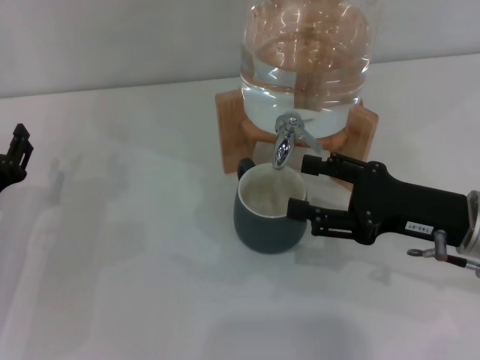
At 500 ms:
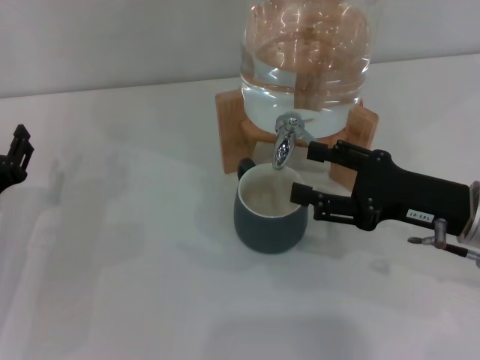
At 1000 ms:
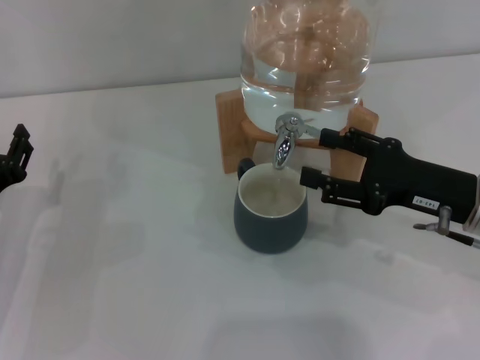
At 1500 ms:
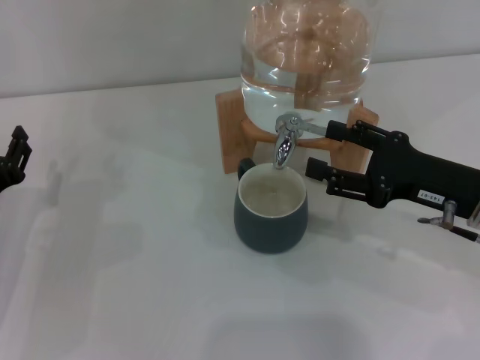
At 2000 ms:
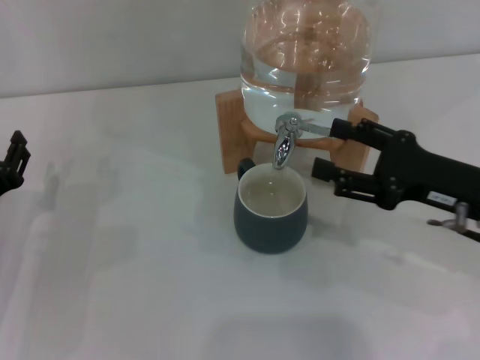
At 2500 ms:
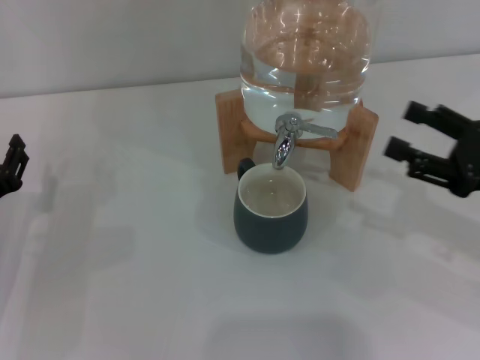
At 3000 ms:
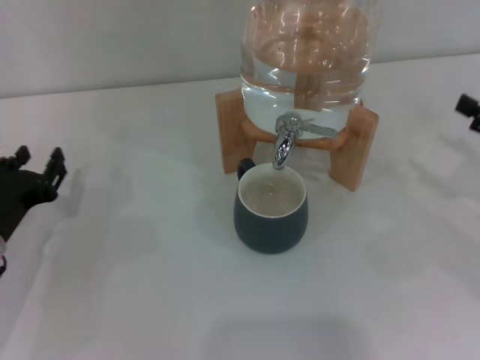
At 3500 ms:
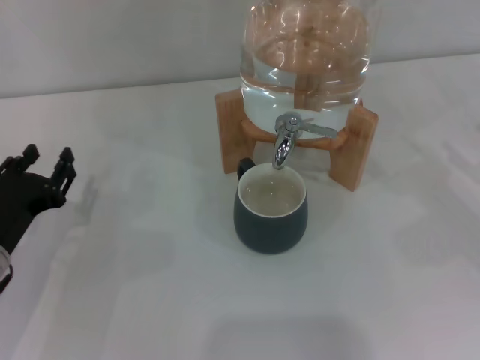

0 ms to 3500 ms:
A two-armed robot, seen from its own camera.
Task of the whole recording: the left gripper pick up the black cup and place it horizontally under the faucet, the right gripper turn on the faucet to fill the cup, and then turn off the faucet.
Step, 0 ms to 2000 ms: Close the dispenser valve with the right gripper.
0 ms to 2000 ms: The grippers make only small movements.
2000 ms to 3500 ms: The right gripper heads to the right, covering some 15 cm.

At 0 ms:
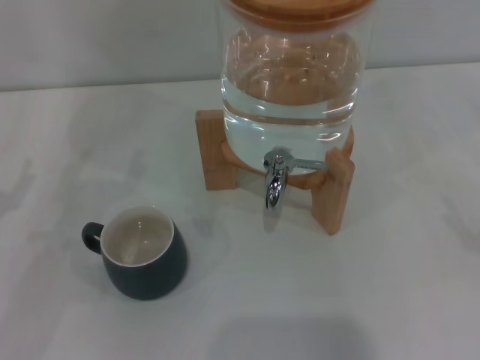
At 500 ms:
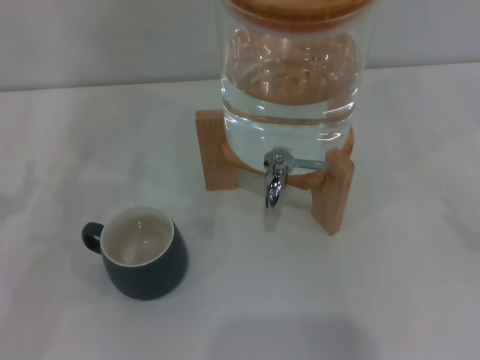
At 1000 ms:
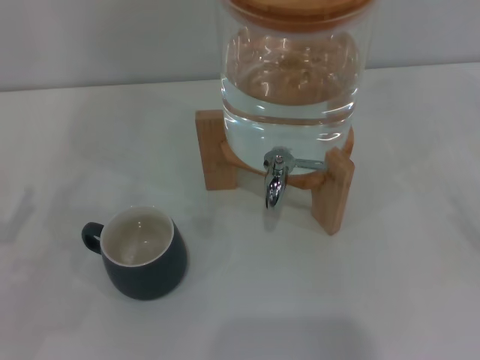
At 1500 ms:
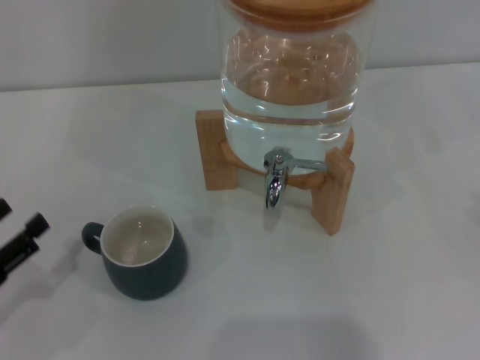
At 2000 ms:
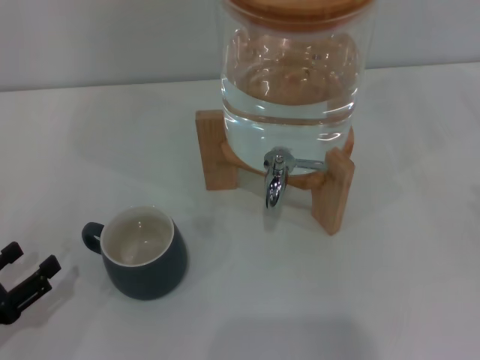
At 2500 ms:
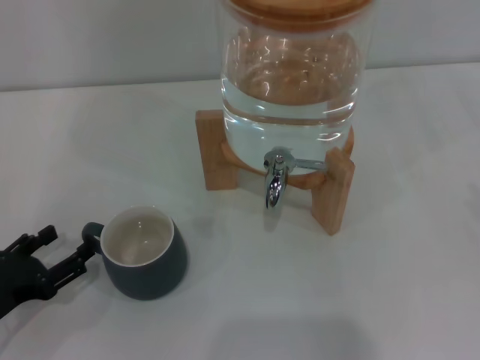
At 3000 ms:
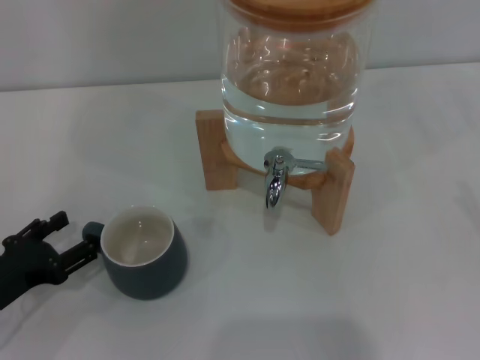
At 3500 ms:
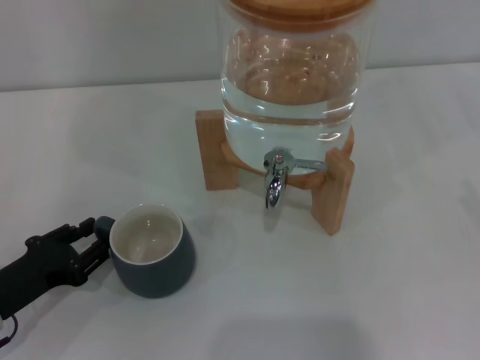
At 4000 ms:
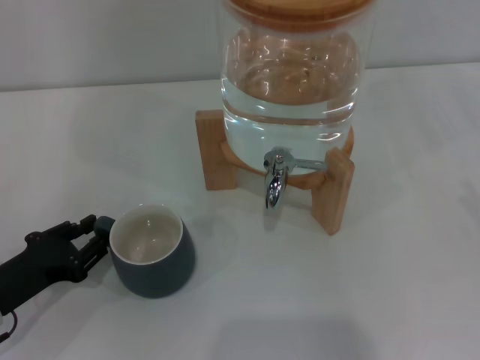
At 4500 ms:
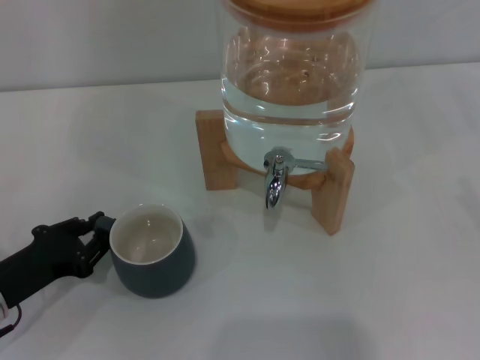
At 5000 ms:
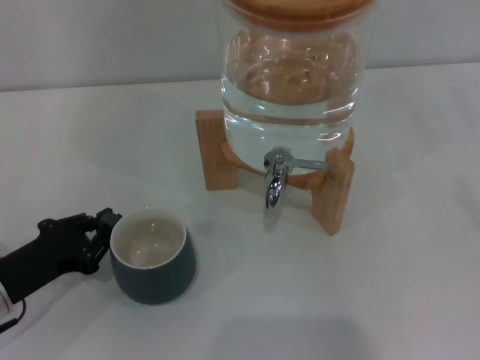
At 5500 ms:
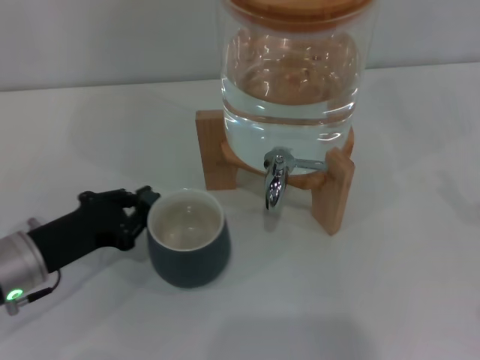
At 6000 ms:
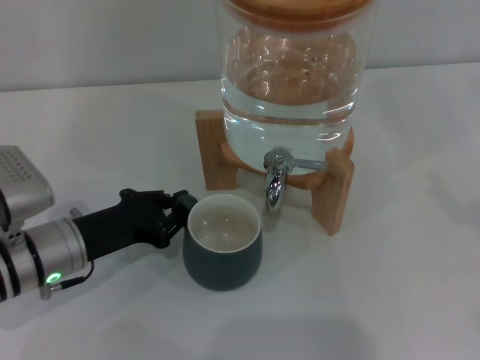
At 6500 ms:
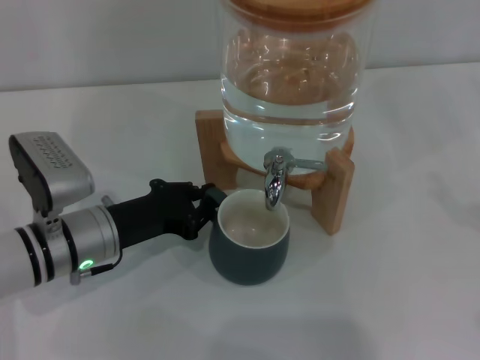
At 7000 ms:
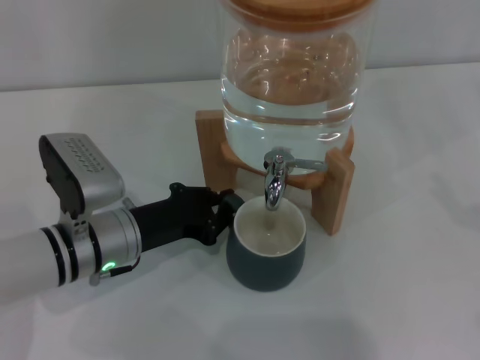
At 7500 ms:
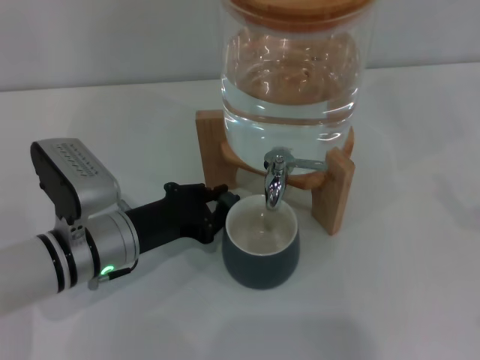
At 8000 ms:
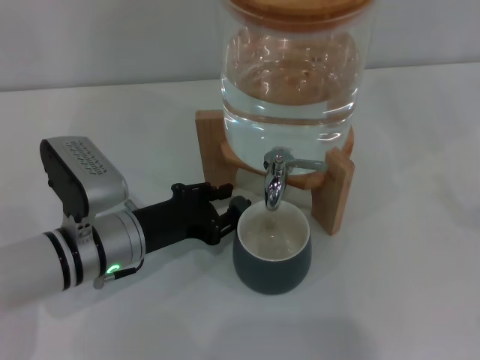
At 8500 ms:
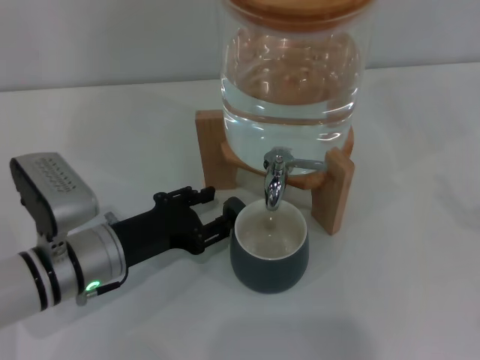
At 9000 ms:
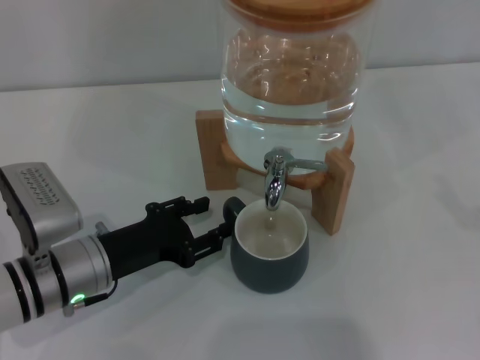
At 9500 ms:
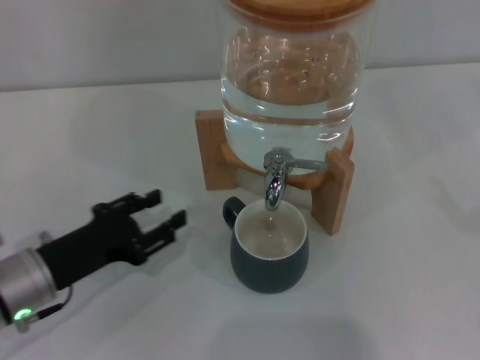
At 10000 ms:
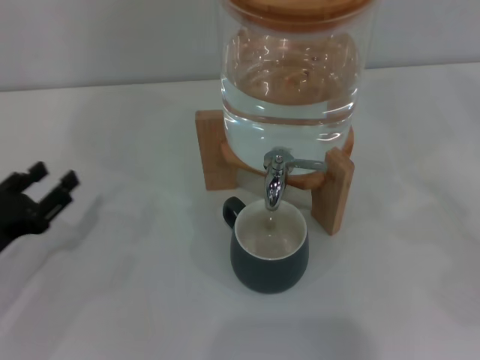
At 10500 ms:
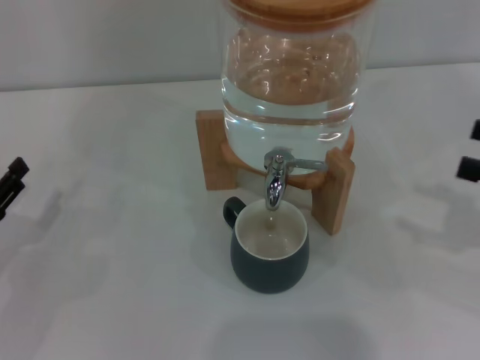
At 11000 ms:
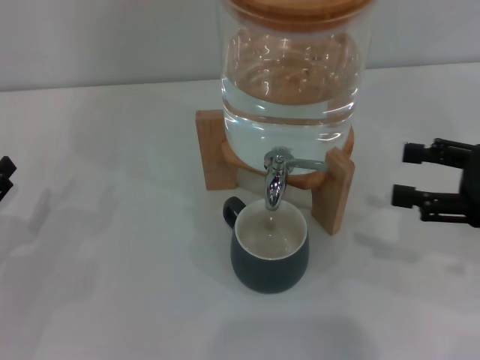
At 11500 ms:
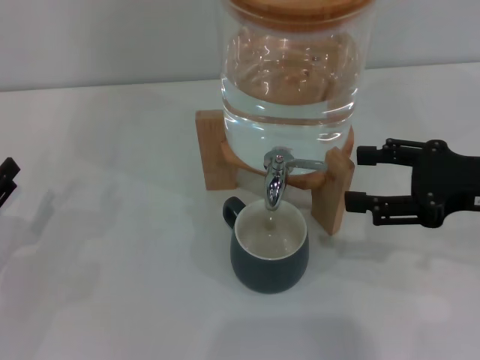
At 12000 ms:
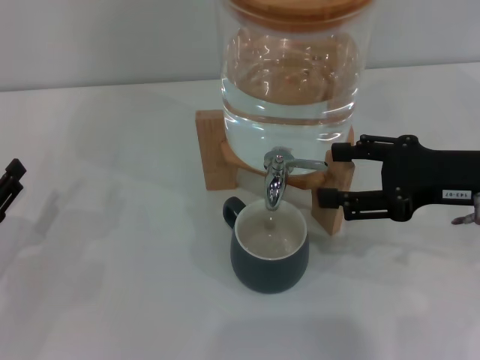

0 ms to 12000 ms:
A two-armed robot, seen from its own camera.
Task of the whole recording: the left gripper pick up the black cup and place it horizontally under the faucet, the right gripper turn on the faucet to fill the cup, and then turn off the faucet.
Step, 0 ms to 9000 ms: Move the cup beneath the water dispenser nozzle with the left gripper.
0 ms to 2000 ms: The left gripper heads backward, covering some 10 cm.
2000 ms to 4000 ms: The left gripper goes some 5 cm forward, and closes.
4000 ms to 6000 ms: The left gripper moves to the right and forward, some 10 cm.
6000 ms to 8000 ms: The left gripper is displaced to the right by approximately 5 cm.
8000 ms to 10000 ms: The left gripper is displaced to the left by approximately 15 cm, and opens up.
10000 ms to 12000 ms: The right gripper goes some 20 cm to the left and forward.

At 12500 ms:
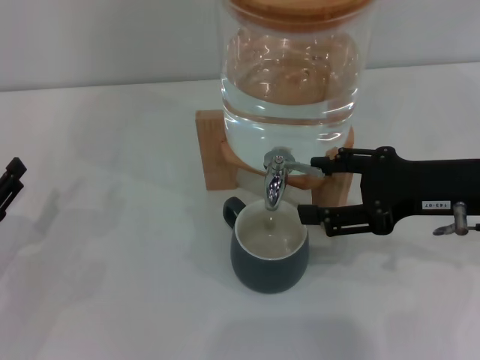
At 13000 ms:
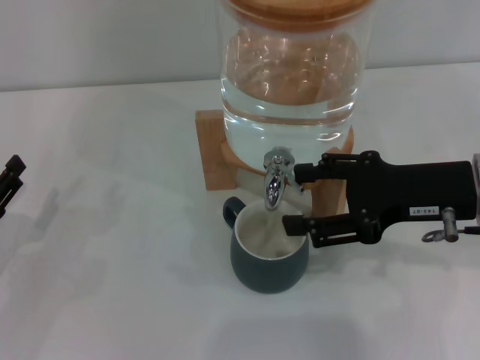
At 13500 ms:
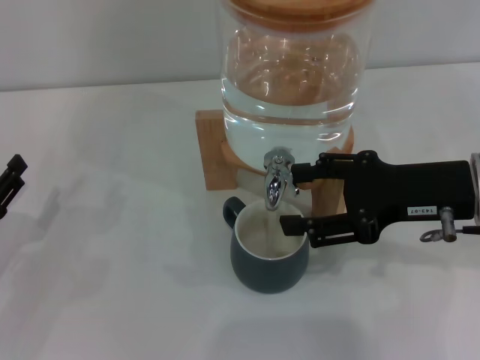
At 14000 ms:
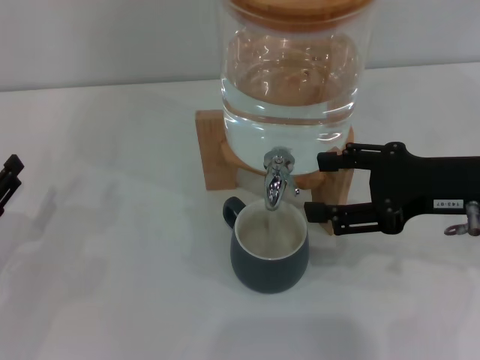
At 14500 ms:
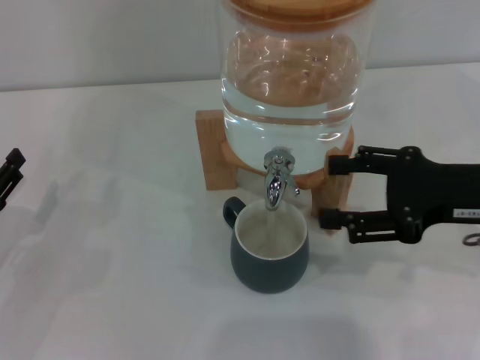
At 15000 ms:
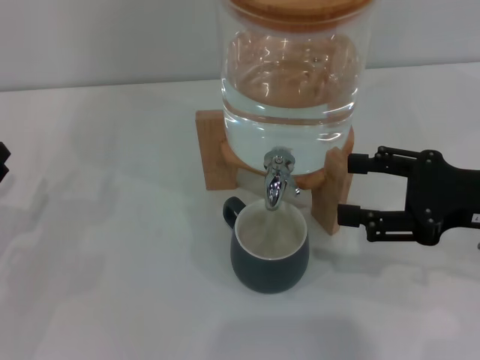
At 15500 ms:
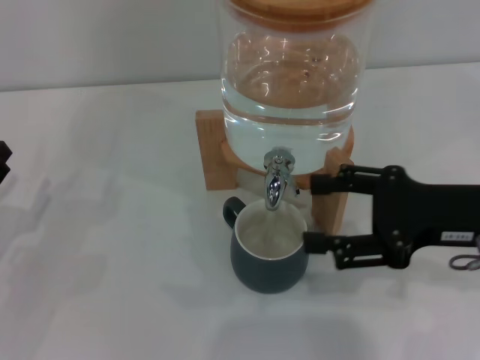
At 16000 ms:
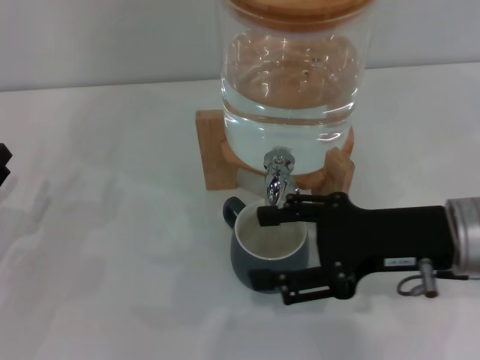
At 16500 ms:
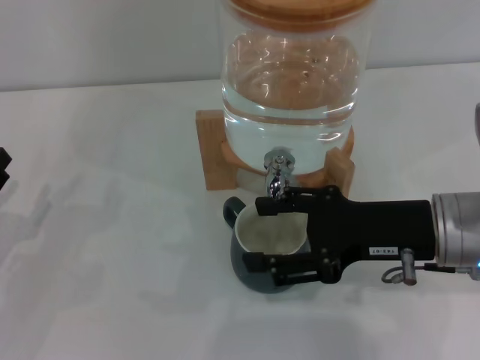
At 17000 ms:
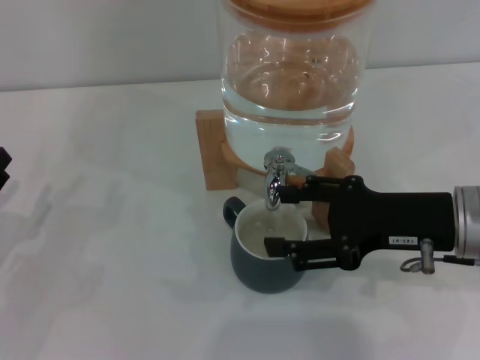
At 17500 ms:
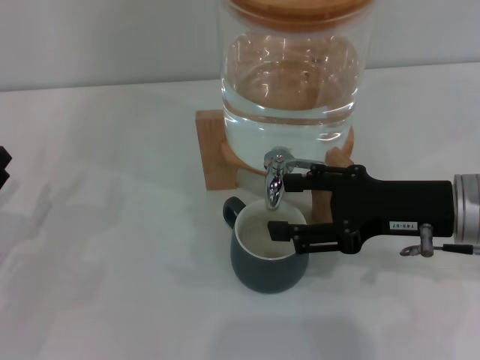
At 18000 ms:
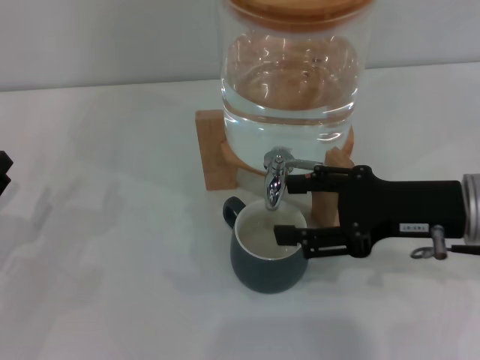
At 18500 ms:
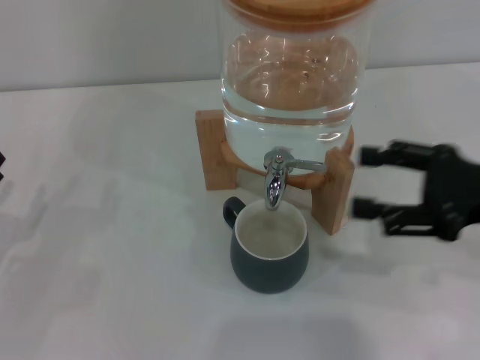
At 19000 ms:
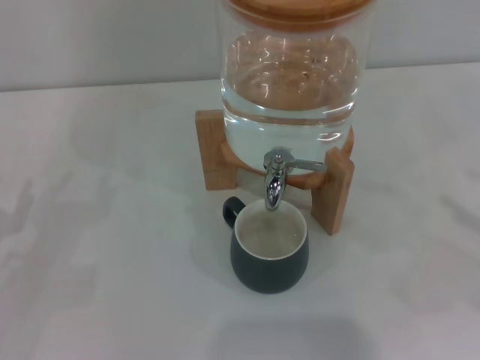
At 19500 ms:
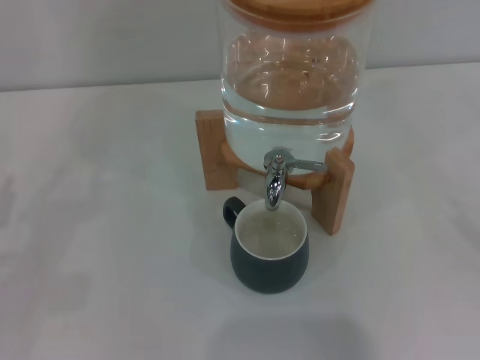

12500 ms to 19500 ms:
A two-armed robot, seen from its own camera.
Task of the whole recording: the left gripper pick up the black cup and place it horizontally under the faucet, the right gripper turn on the faucet to fill the cup, and then turn off the faucet.
Step, 14000 ms to 18000 ms: Close the dispenser valve with the right gripper.
12500 ms to 14500 ms: The grippers make only small movements.
14500 ms to 16000 ms: The right gripper moves to the left, approximately 5 cm.
16000 ms to 17500 ms: There are only small adjustments of the grippers.
17500 ms to 19500 ms: The right gripper goes about 25 cm to the right and backward.
